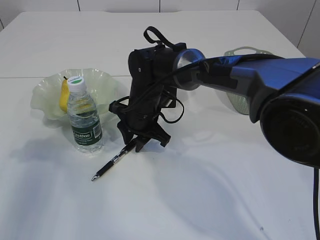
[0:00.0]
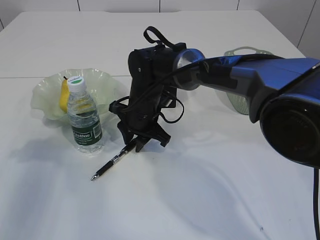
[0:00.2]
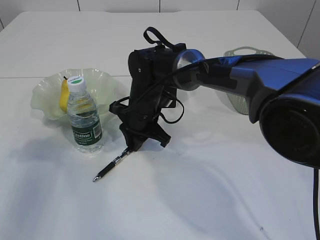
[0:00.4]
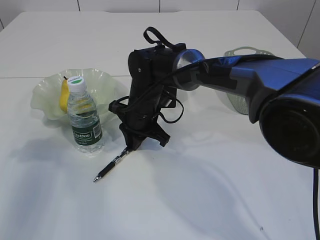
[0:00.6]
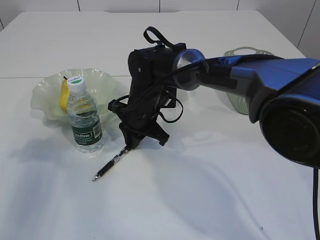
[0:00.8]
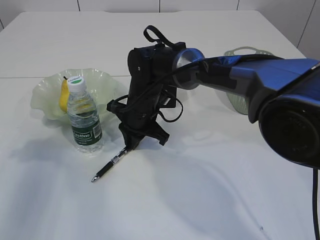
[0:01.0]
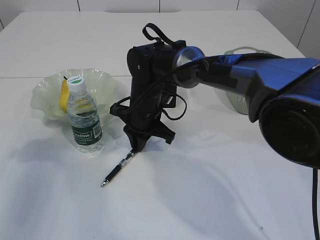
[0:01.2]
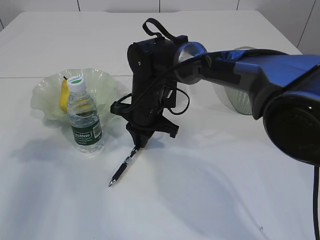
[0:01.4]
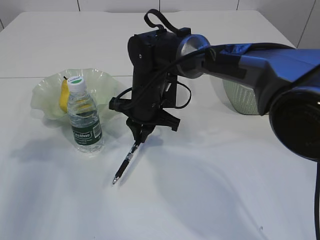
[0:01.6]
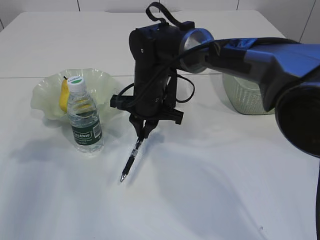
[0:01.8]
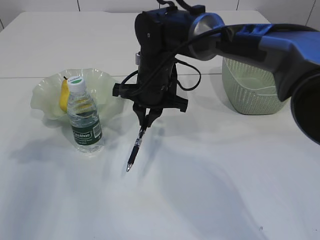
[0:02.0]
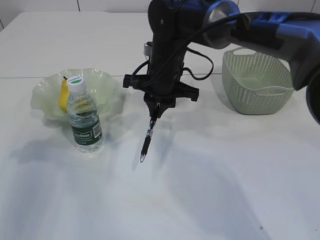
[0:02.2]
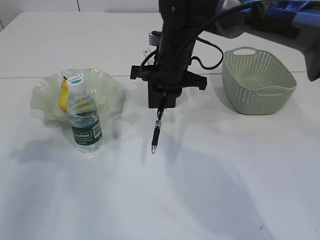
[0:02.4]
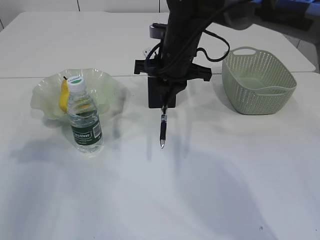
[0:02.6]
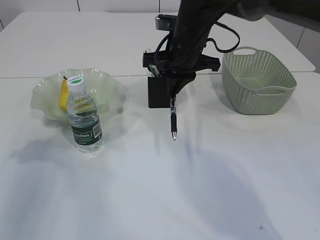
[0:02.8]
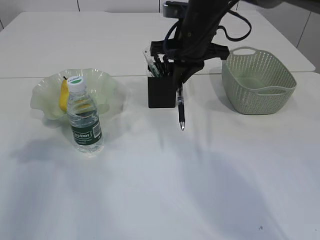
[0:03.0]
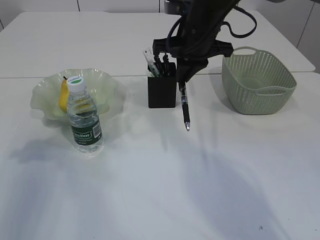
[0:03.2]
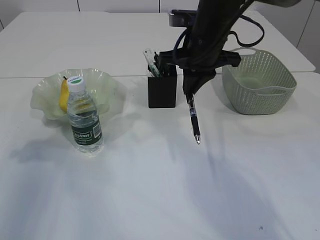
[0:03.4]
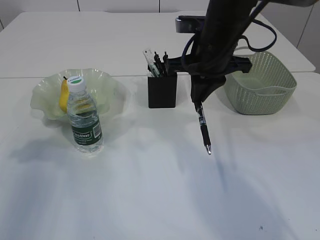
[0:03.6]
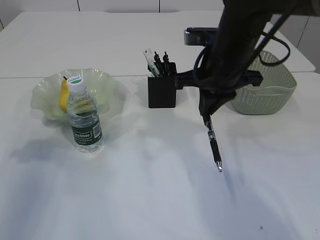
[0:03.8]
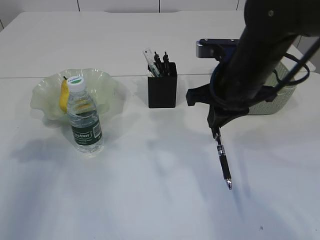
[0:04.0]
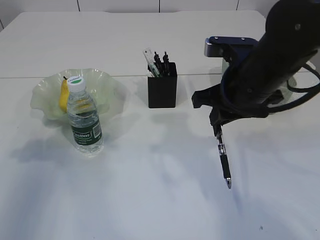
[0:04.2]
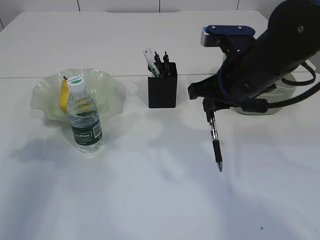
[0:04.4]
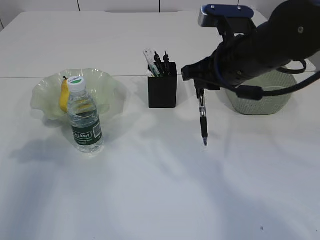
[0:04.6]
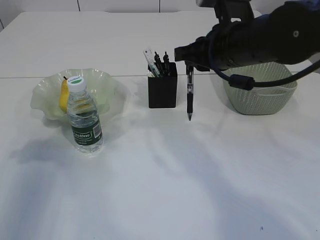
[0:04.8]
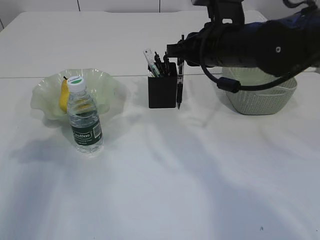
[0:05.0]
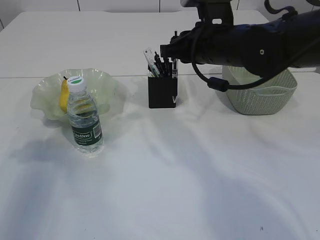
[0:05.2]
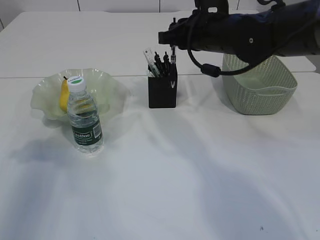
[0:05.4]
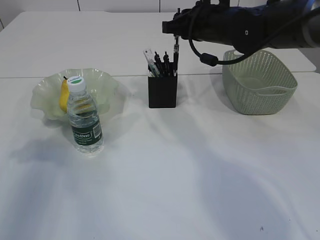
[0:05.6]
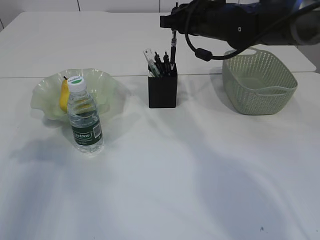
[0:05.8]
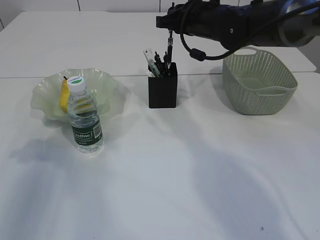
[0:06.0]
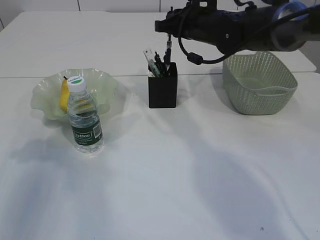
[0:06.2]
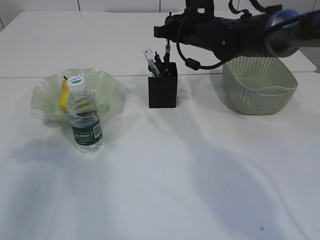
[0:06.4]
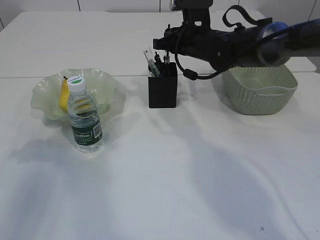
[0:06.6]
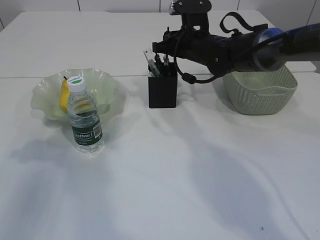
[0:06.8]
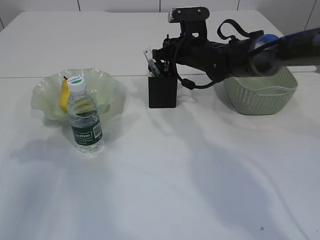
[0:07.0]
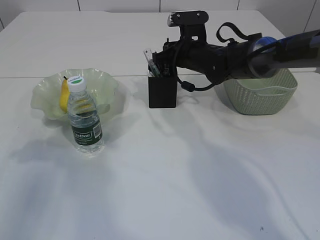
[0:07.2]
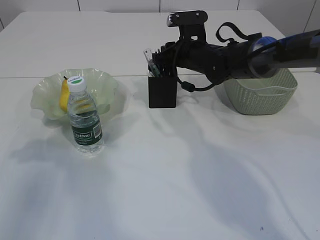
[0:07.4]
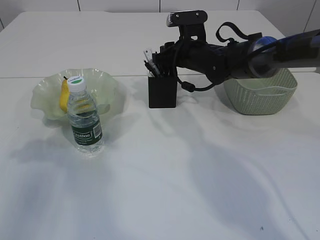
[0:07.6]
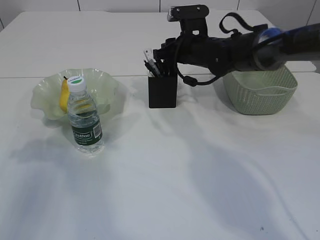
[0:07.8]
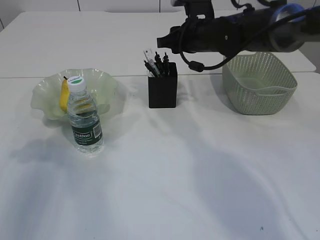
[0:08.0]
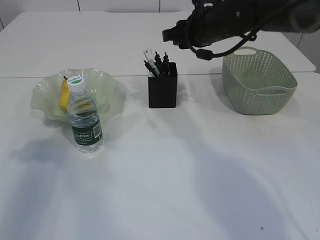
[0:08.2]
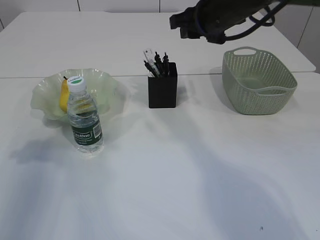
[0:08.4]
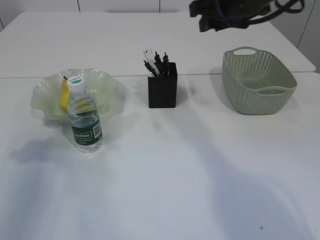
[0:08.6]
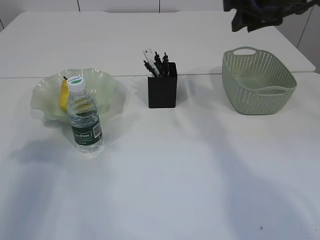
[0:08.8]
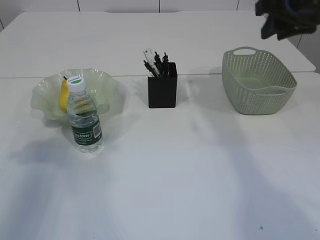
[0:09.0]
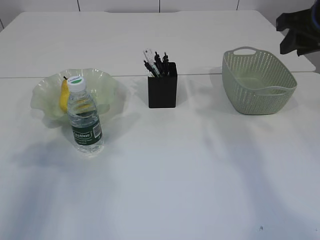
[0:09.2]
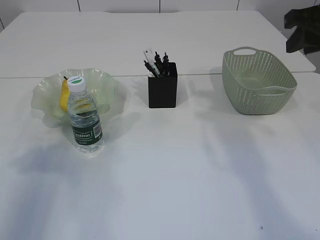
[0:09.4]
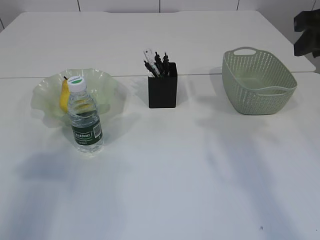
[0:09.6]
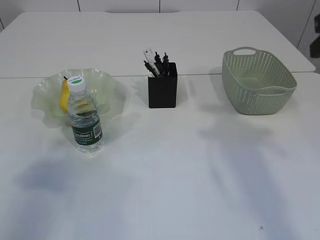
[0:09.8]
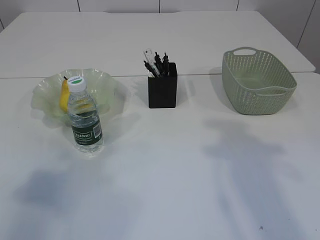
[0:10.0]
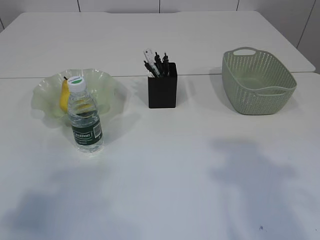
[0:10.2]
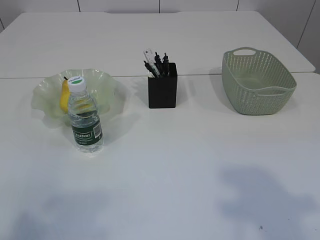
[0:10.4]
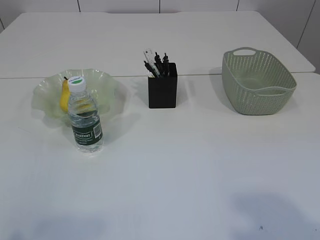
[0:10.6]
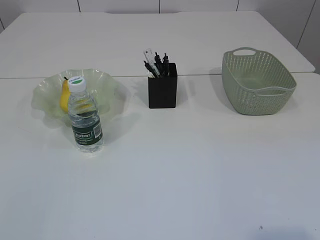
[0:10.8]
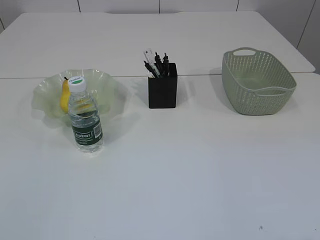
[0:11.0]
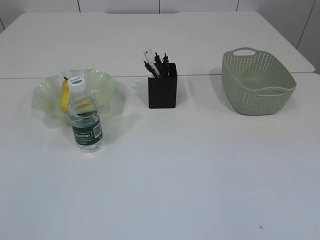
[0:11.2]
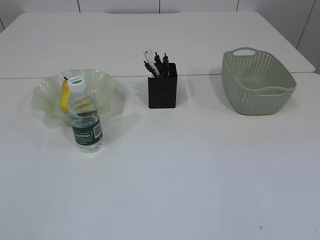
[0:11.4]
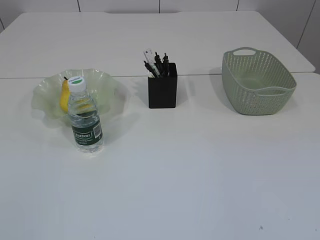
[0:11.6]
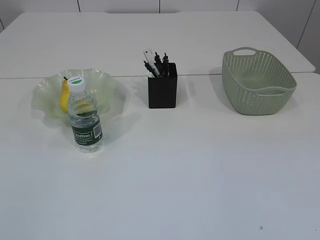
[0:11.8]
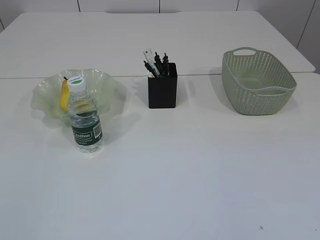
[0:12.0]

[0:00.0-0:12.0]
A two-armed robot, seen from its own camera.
Step, 0:00.0 to 0:02.2: Pick up the pen with right arm.
Step, 0:02.4 to 0:08.4: Place the pen into the pen holder.
0:00.0 to 0:01.6: The grippers make only small movements.
0:01.6 to 0:03.0: The right gripper heads upward and to the right, covering roughly 15 cm.
0:03.0 to 0:04.4: The right gripper goes roughly 10 cm backward and to the right.
0:04.4 to 0:06.0: The right gripper shifts about 15 cm forward.
0:06.0 to 0:07.6: The right gripper travels downward by about 10 cm, and opens its fingers.
0:07.6 to 0:09.0: The right gripper shifts some 25 cm upward, to the right and backward.
0:09.0 to 0:10.4: The two grippers go roughly 25 cm backward.
0:10.4 to 0:12.0: The left gripper travels backward and downward by roughly 10 cm.

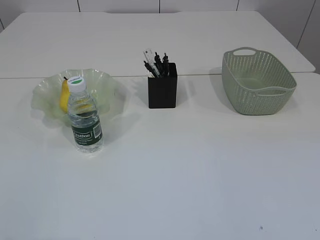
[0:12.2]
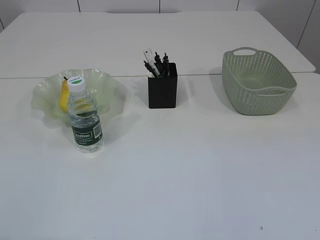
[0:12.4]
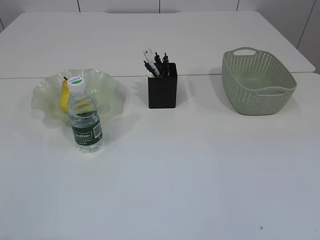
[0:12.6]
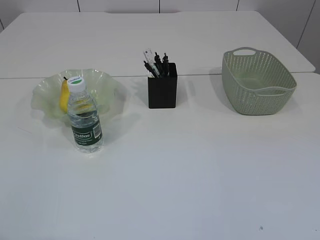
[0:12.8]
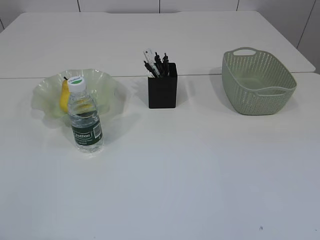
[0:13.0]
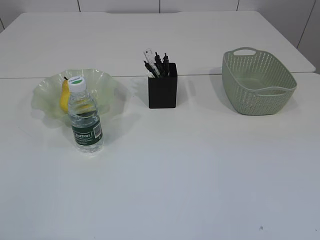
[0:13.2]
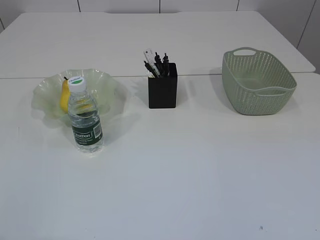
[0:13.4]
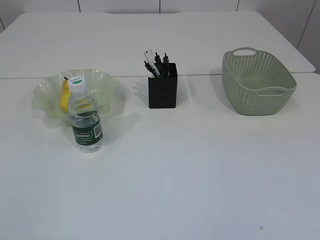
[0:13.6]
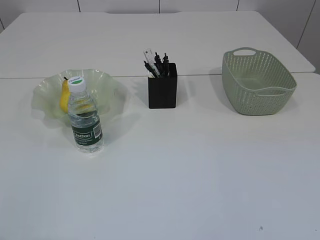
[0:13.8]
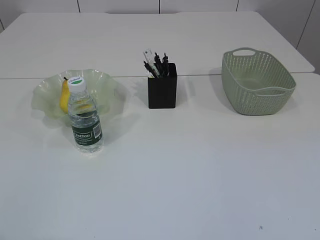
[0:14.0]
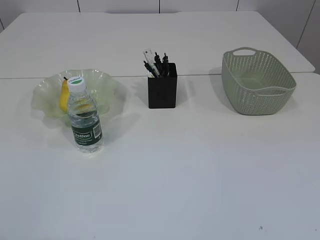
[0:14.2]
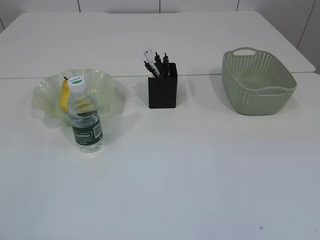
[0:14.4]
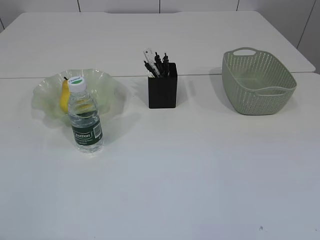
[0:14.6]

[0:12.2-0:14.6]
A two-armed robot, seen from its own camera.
0:13.4 to 0:14.6: Both grippers stay put.

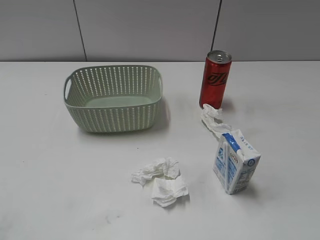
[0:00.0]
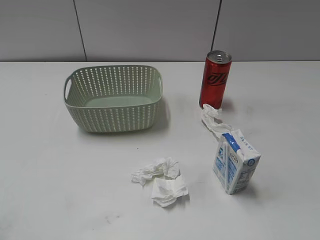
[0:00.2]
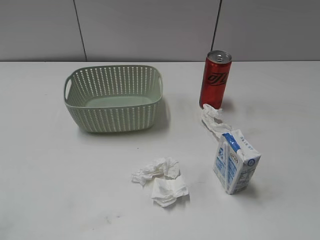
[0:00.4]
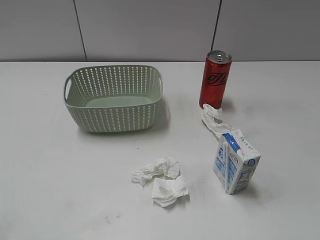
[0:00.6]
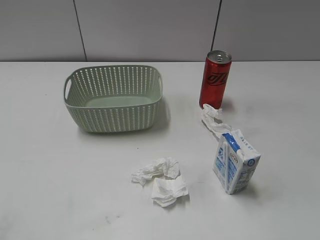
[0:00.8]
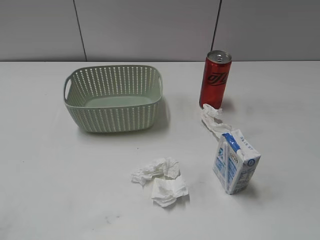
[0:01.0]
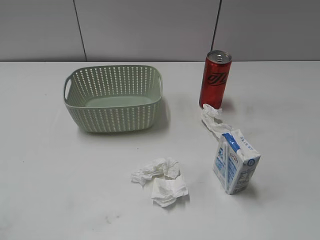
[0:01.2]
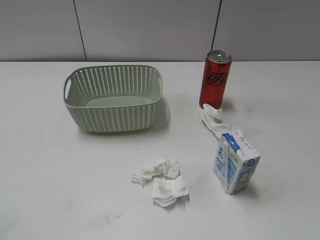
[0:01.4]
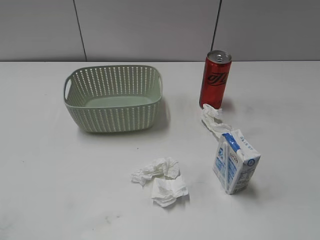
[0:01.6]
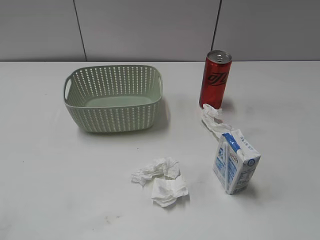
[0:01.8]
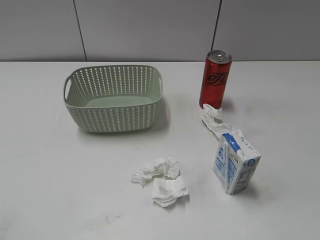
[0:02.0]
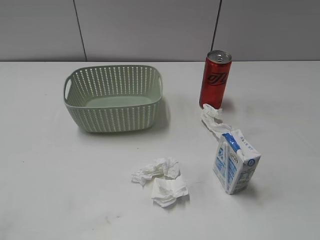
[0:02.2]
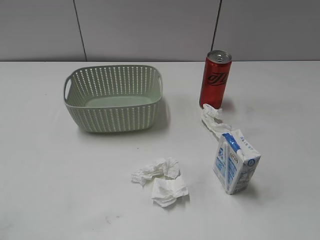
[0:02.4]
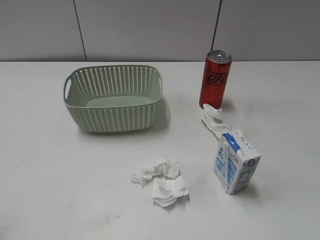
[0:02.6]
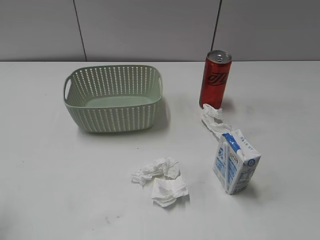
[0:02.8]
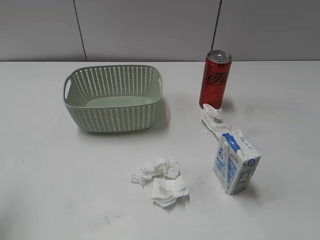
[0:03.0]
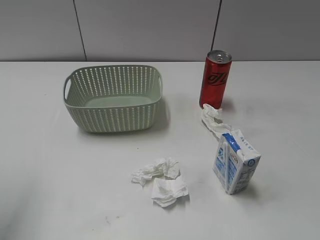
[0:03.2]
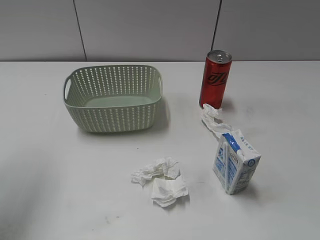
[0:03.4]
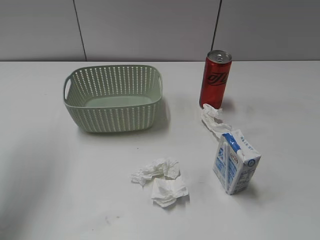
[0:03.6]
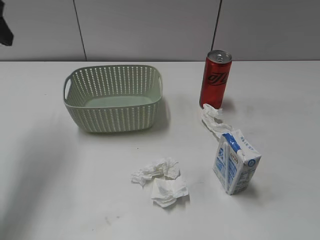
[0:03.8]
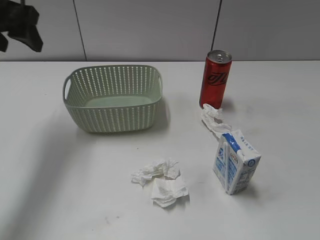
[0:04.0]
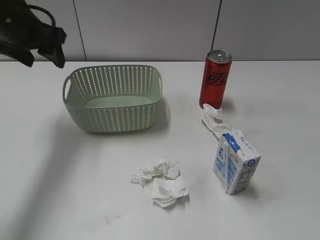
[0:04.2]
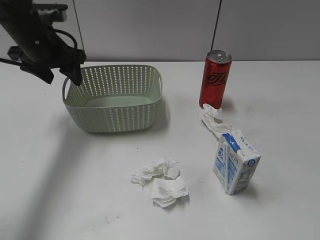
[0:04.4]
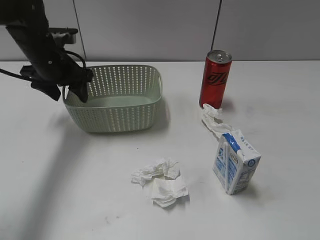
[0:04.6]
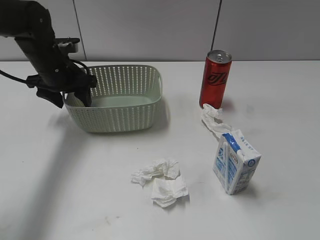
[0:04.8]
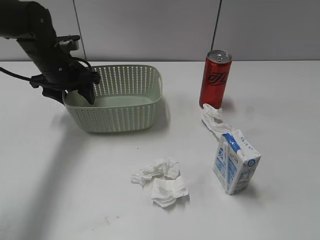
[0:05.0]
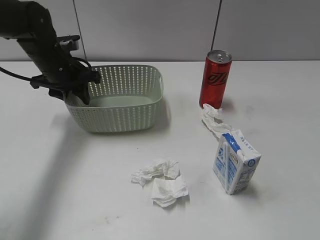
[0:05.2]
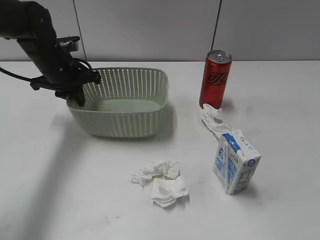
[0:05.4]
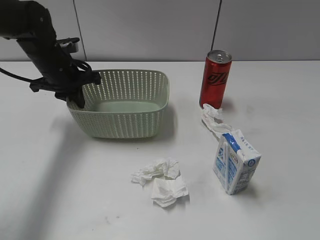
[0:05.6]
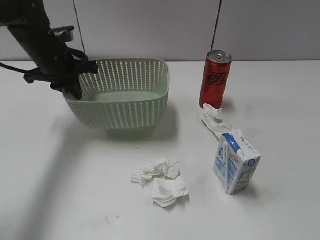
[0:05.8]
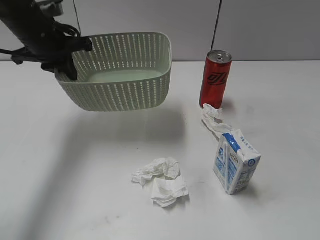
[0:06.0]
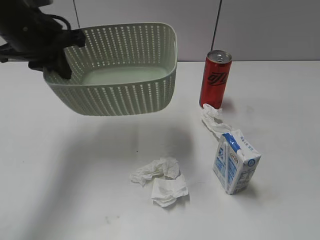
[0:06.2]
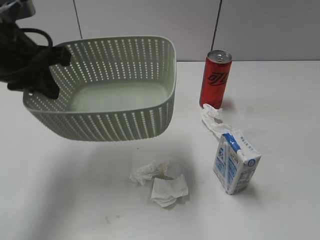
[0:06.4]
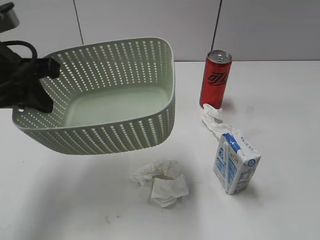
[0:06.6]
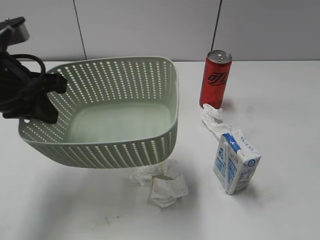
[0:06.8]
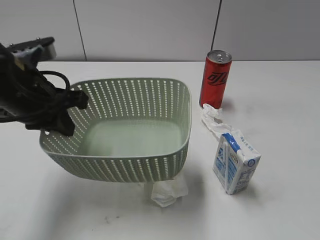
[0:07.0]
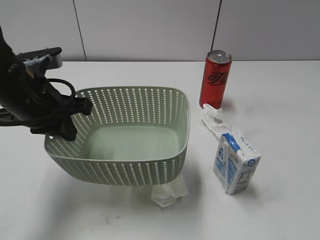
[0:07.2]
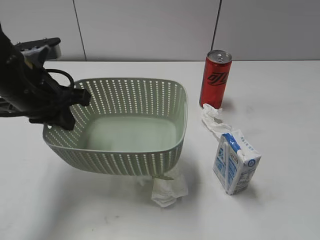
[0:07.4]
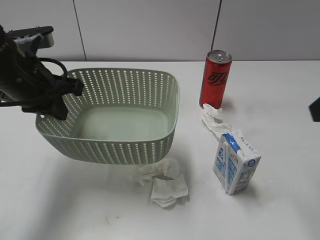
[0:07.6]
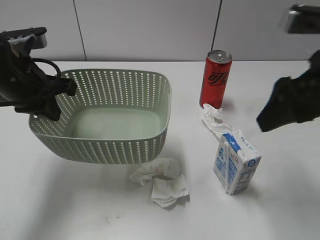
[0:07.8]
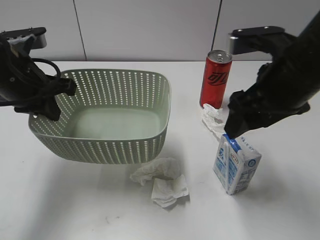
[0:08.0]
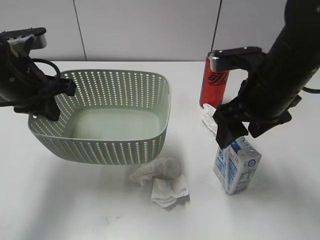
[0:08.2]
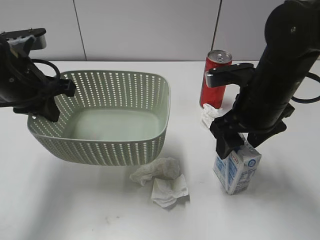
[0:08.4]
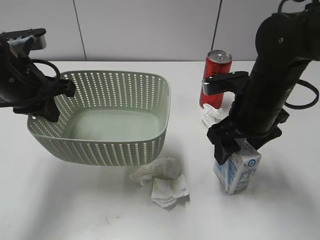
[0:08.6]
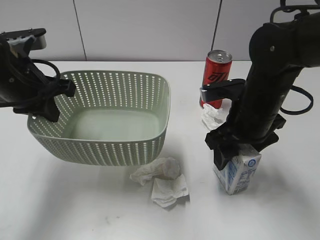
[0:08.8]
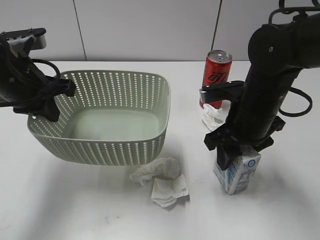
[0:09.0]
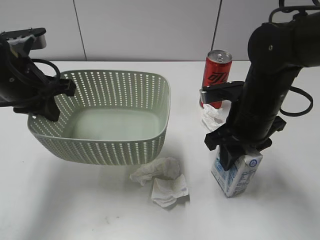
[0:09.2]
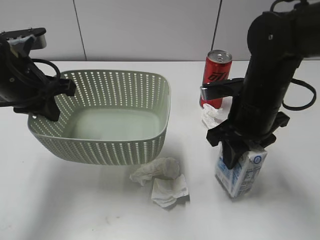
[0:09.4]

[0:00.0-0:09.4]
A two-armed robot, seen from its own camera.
Step, 0:03.8 to 0:05.4: Grasp the basket with left gripper.
Step, 0:05.6 to 0:07.4: Lift the basket with left gripper.
Step, 0:07.6 to 0:09.2: Grasp the milk with right gripper.
0:01.6 to 0:03.2: The left gripper goes some 20 cm forward and upward.
0:03.2 to 0:04.8: The left gripper moves forward, downward and to the right, about 35 cm.
0:04.8 to 0:06.2: The left gripper travels upward and backward by approximately 15 cm, and closes up.
0:06.2 to 0:07.8: The right gripper moves forward and to the left, roughly 25 cm. The left gripper moves approximately 5 cm.
0:07.8 to 0:09.4: The right gripper moves downward, to the left and forward, roughly 15 cm, and closes.
